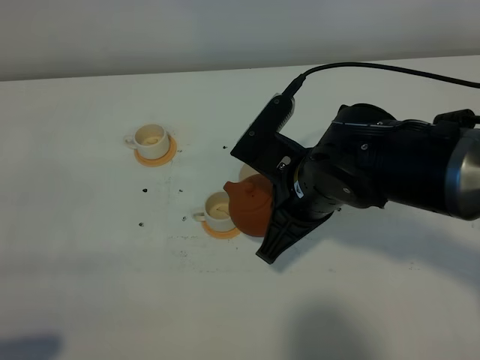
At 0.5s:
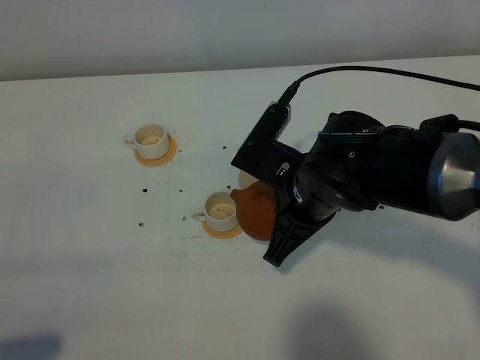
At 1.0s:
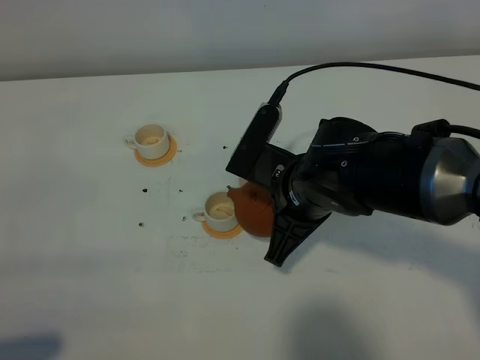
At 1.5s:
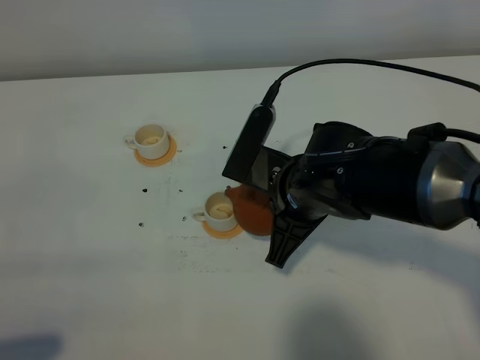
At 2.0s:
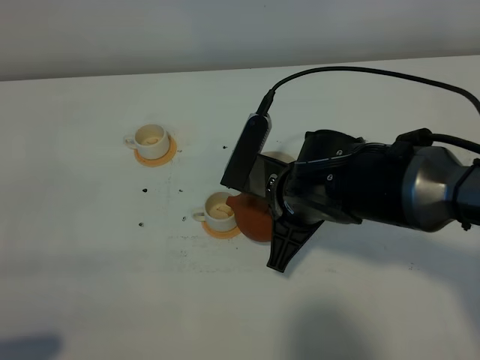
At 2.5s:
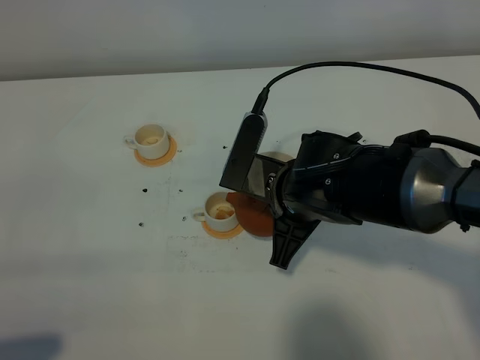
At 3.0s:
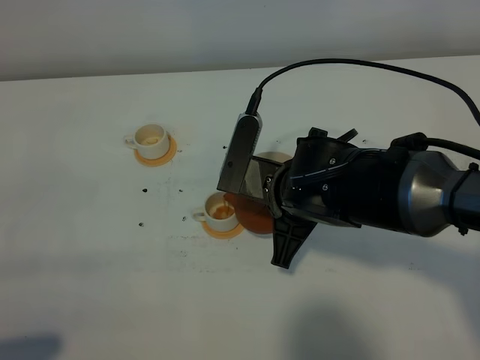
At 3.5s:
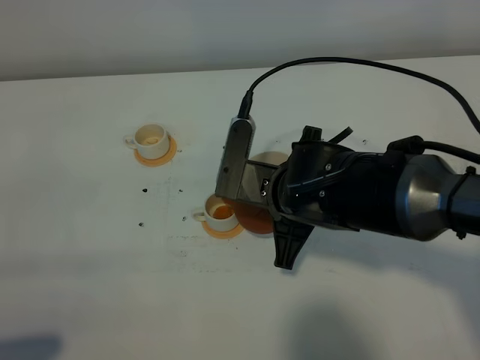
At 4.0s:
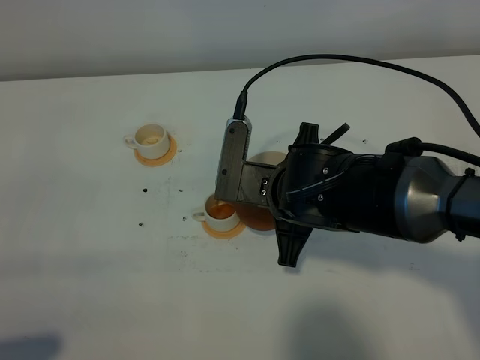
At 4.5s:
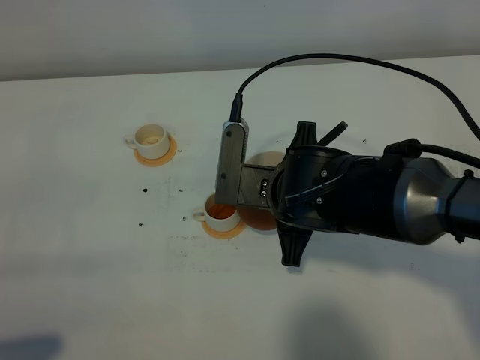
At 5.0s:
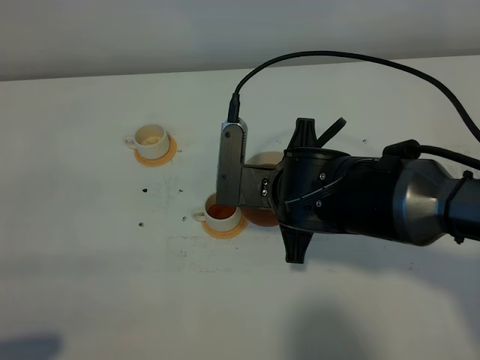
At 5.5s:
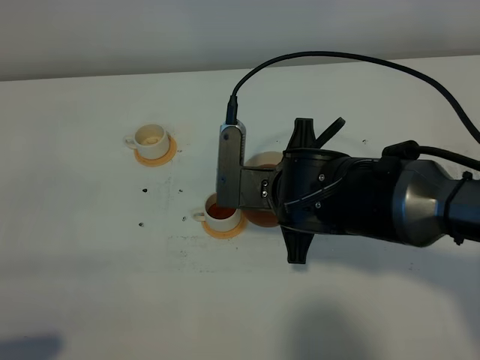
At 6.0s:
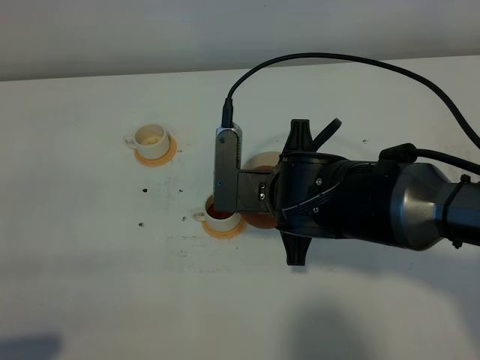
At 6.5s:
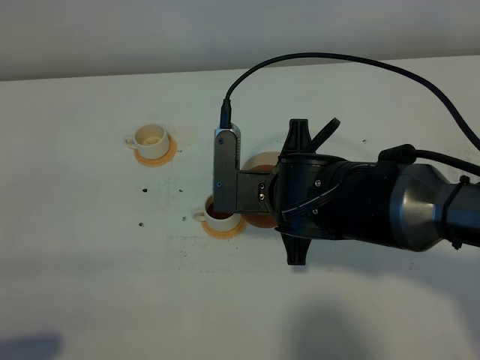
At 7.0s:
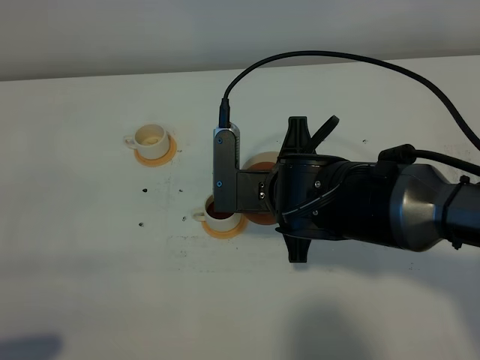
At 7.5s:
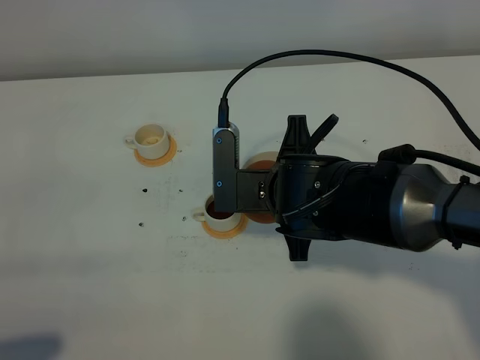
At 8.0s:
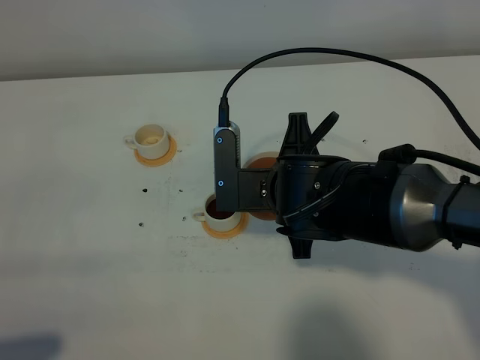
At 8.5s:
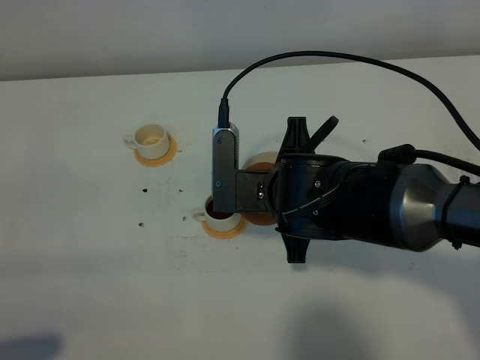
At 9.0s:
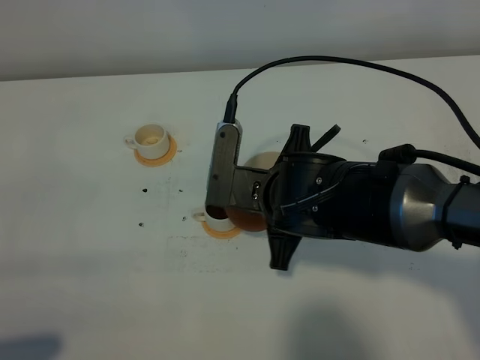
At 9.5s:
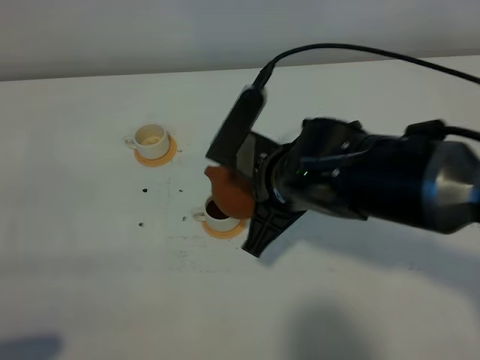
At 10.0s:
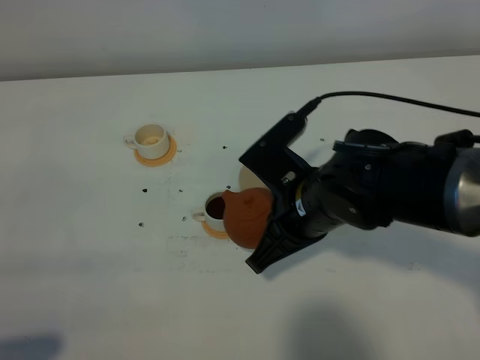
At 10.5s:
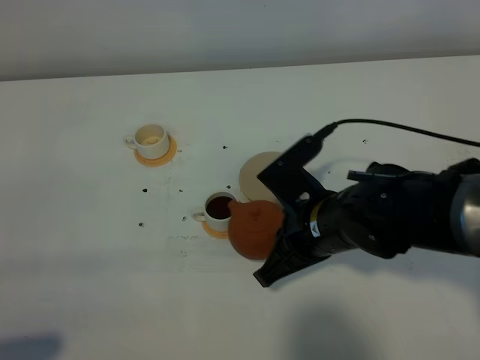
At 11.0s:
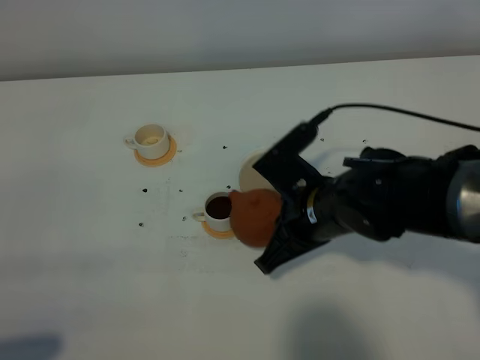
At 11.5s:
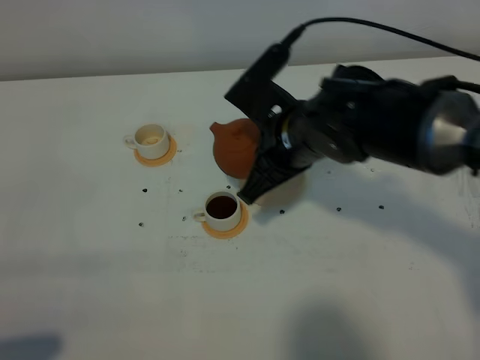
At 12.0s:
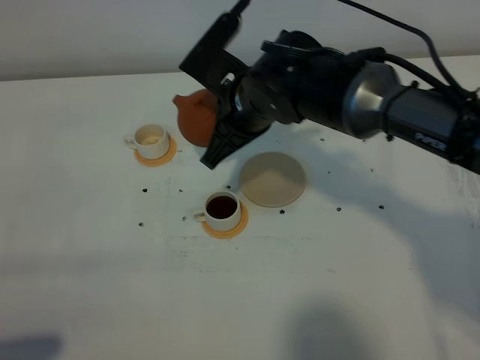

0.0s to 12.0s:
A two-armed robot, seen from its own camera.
Task of the whole recording: grasp the brown teapot and pour the tea into the two white teacups one by one, put the brown teapot back in its original place.
0.0s to 2.0s: There are only small adjustments of the grippers.
2.0s to 4.0s: The grippers move only a little.
4.0s to 6.0s: The grippers make only small movements.
6.0s to 8.0s: Neither gripper changes place.
10.0s to 12.0s: The right gripper is displaced forward by approximately 10 cm.

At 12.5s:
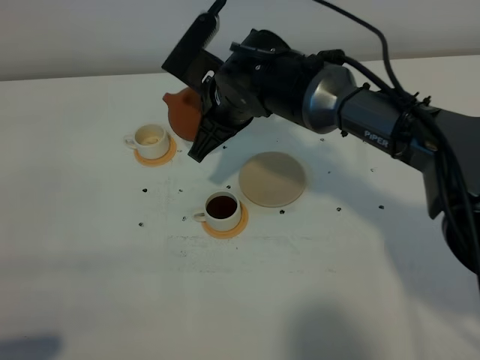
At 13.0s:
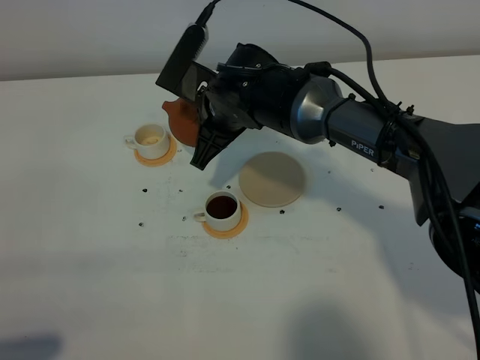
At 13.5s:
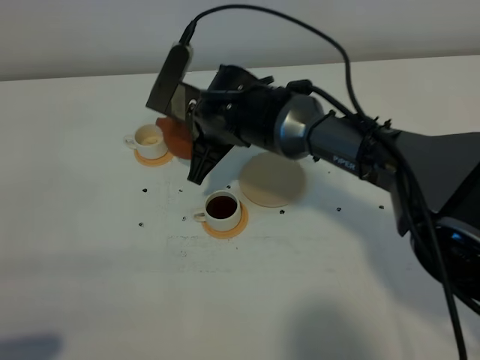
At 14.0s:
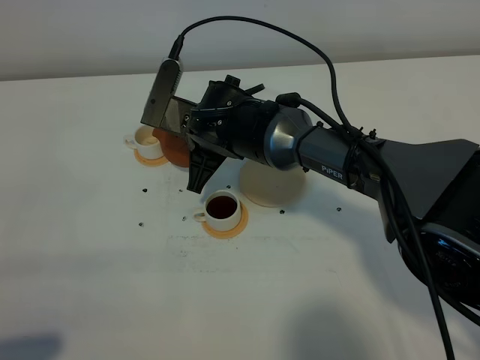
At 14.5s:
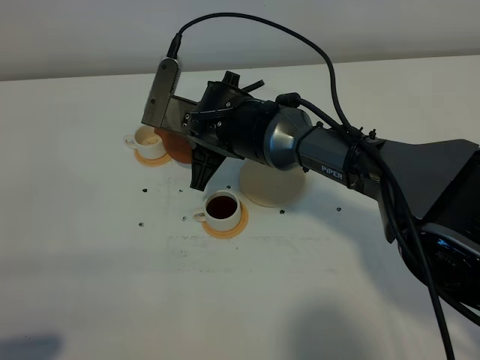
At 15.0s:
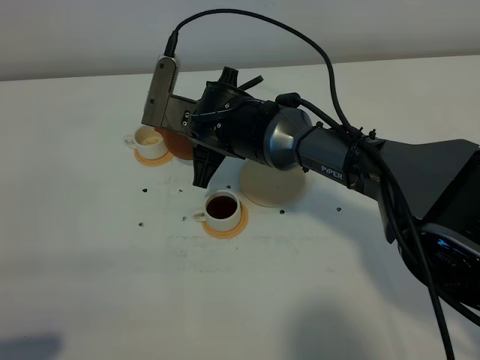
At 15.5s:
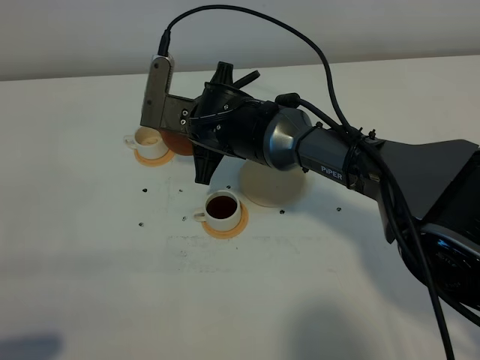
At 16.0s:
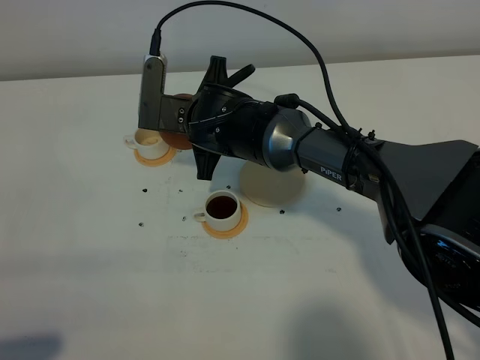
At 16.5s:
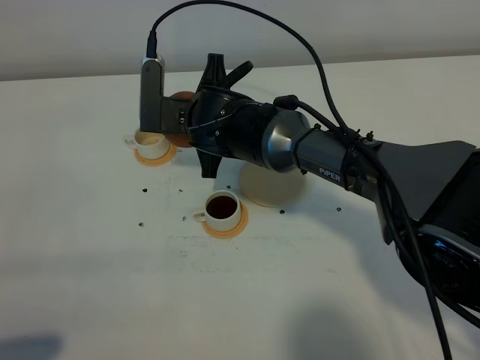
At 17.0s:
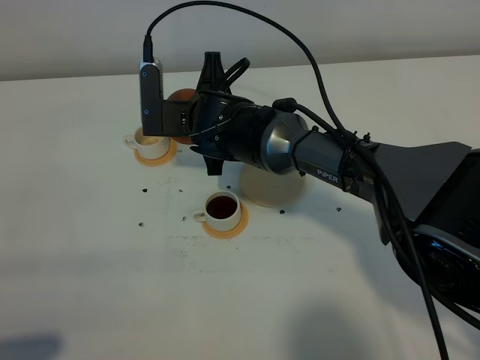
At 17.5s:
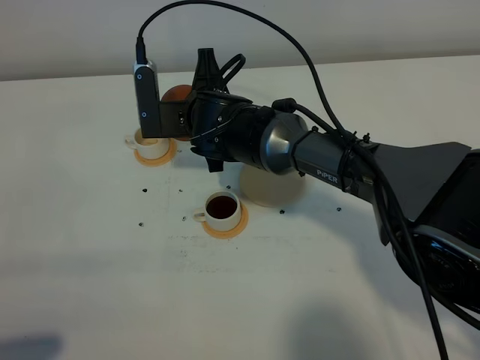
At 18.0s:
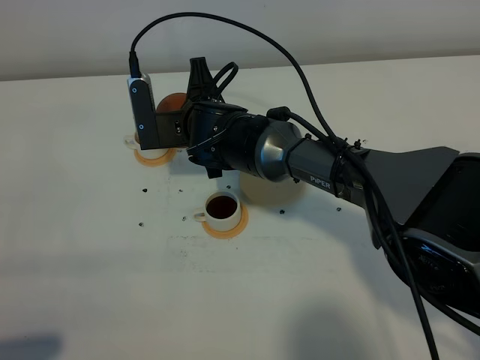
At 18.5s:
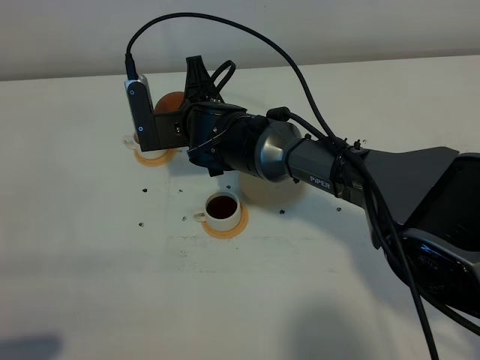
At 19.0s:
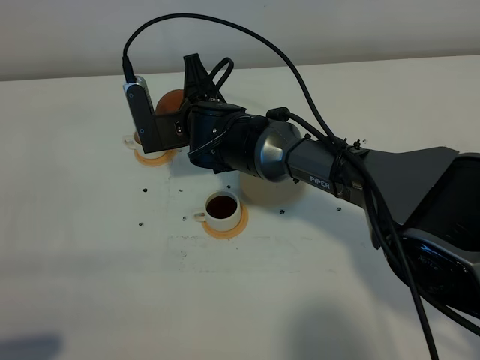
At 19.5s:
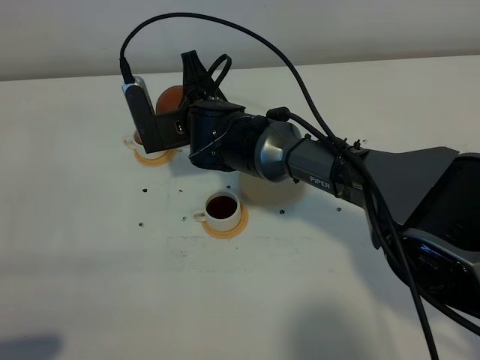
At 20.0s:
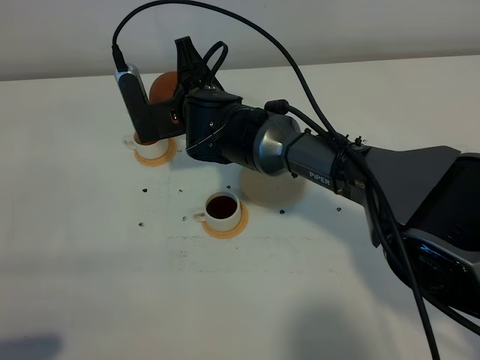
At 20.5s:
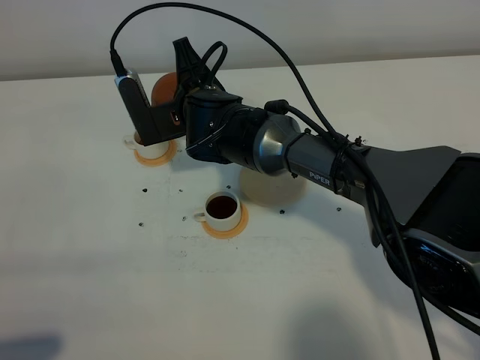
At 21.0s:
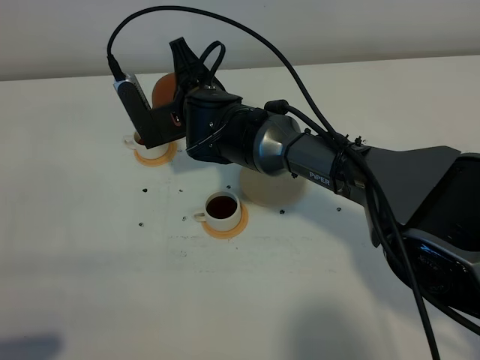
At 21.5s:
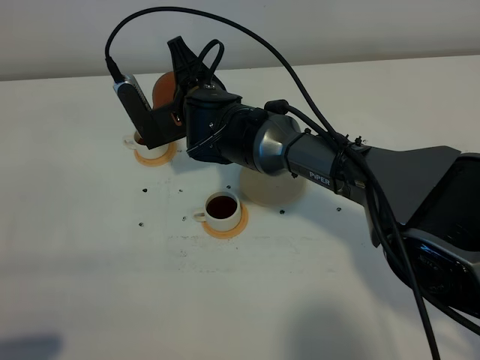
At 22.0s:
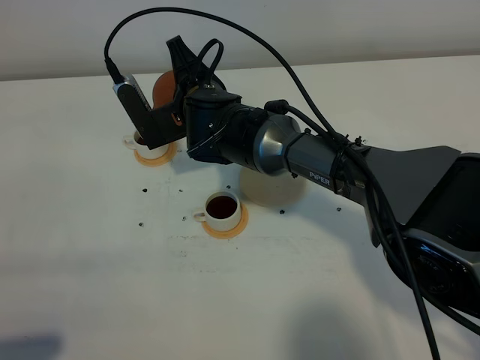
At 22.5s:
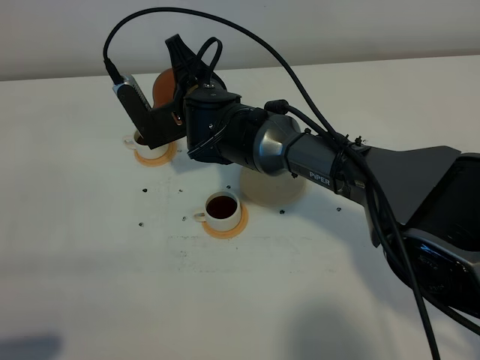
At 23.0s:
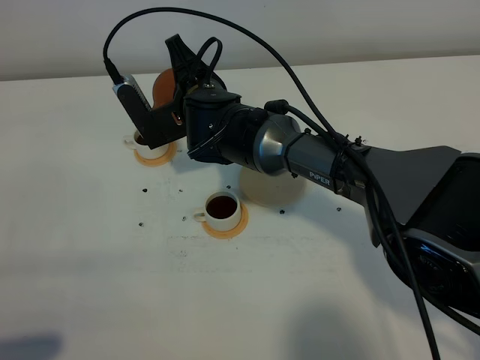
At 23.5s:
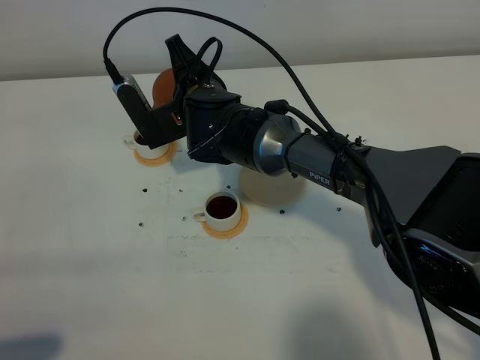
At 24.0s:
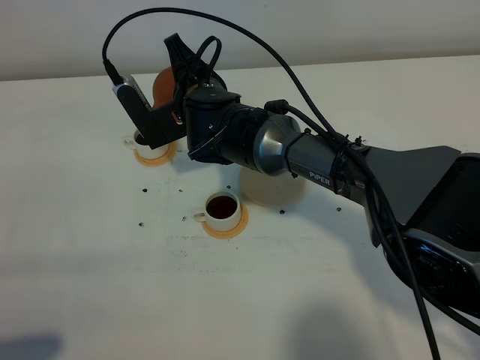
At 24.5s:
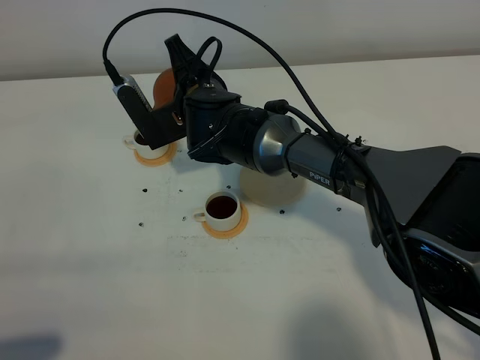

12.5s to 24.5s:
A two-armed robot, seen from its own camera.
Task of the whole recording: grasp the brown teapot and pour the tea into the two white teacups one by one, put the brown teapot back in its original place.
14.5s to 16.5s: The grippers stay close to where they were, moving slightly.
16.5s to 18.5s: There are only small adjustments of the grippers.
18.5s to 22.5s: The grippers move only a little.
22.5s to 24.5s: Both grippers stay put.

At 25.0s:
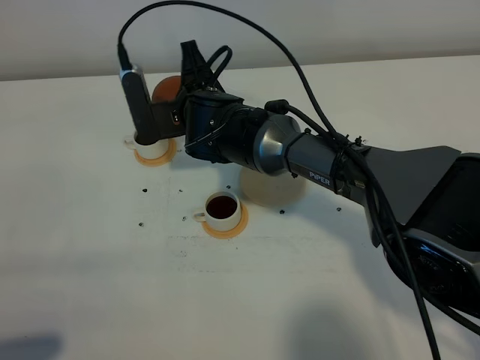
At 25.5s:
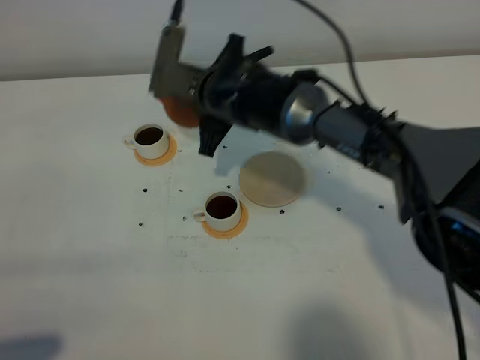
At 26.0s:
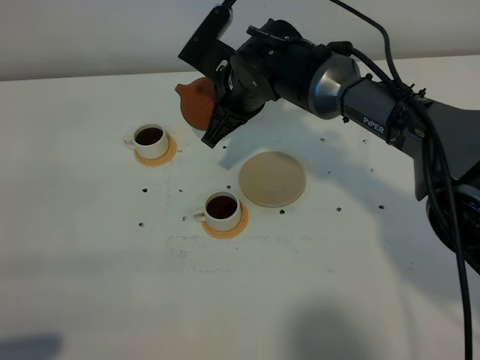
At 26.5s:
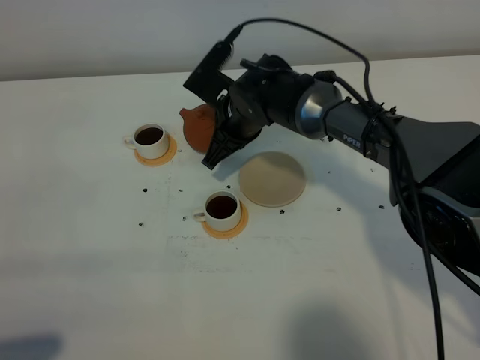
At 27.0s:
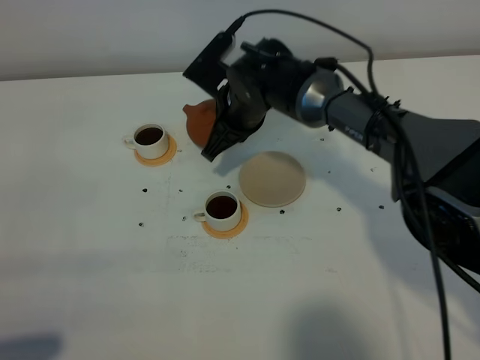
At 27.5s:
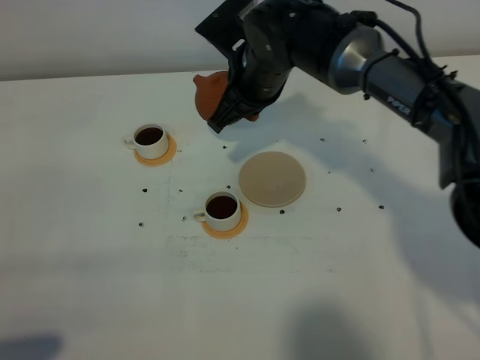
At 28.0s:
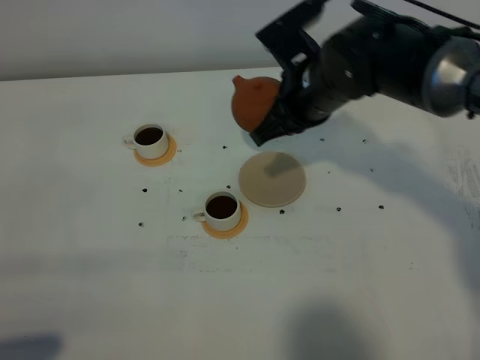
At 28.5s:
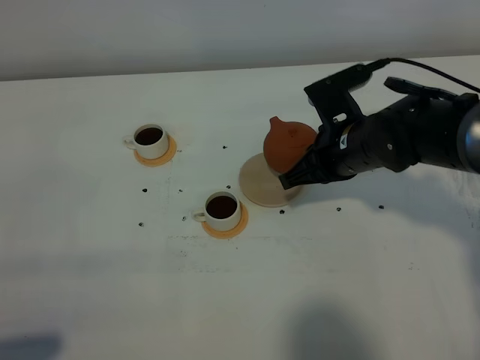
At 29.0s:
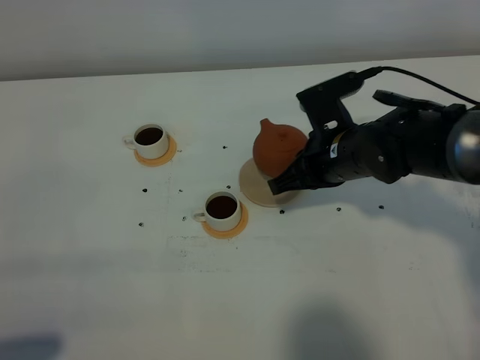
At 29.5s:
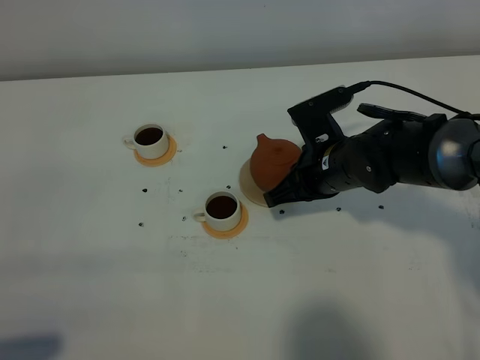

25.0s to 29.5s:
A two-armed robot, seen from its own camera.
Task of the whole recording: grasp the brown teapot and pour the tea into the two white teacups one by one, put the brown teapot back in its original place.
25.0s to 27.0s: The right gripper goes some 5 cm to the right.
27.0s to 29.5s: The right gripper heads backward and to the right, covering approximately 15 cm.
